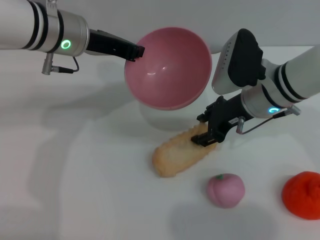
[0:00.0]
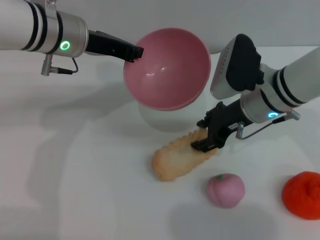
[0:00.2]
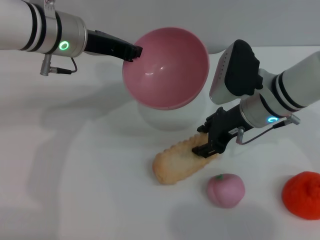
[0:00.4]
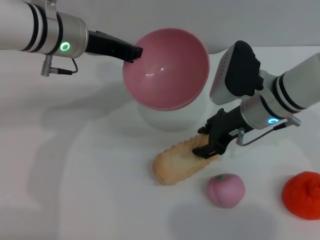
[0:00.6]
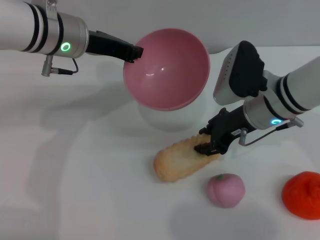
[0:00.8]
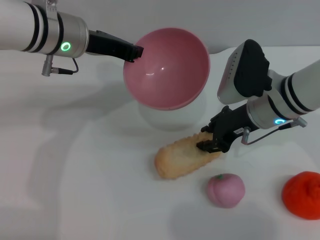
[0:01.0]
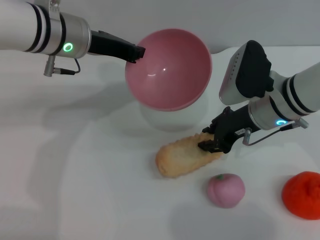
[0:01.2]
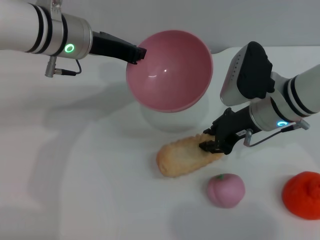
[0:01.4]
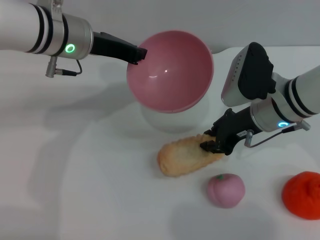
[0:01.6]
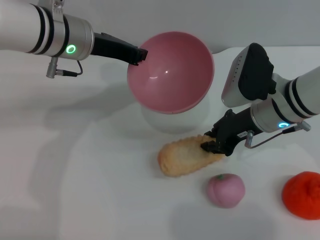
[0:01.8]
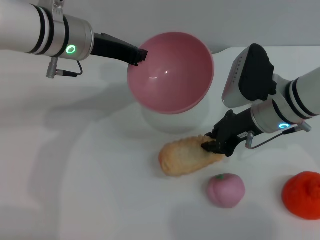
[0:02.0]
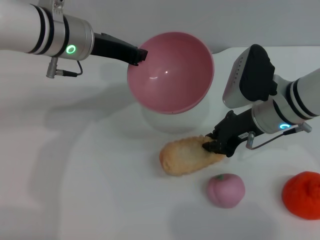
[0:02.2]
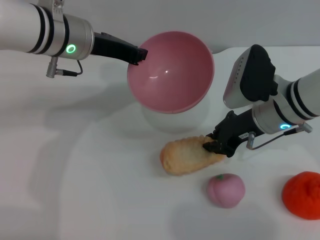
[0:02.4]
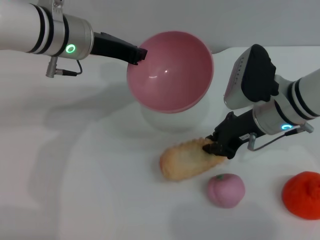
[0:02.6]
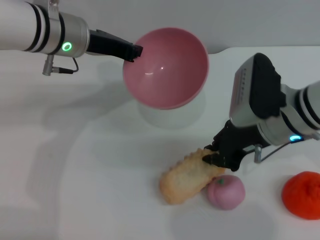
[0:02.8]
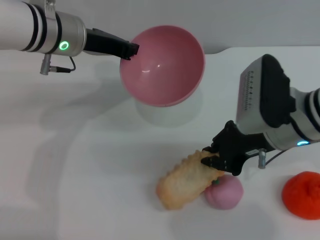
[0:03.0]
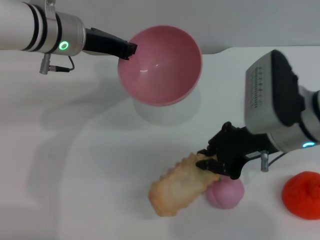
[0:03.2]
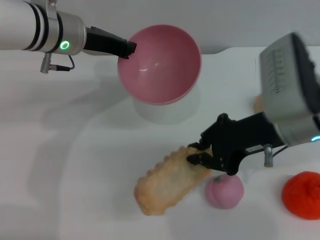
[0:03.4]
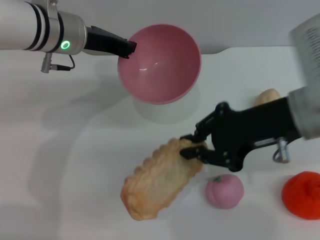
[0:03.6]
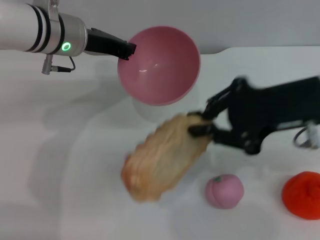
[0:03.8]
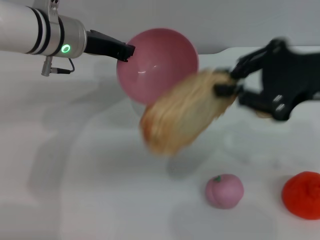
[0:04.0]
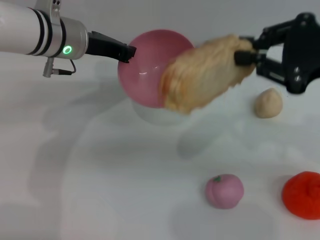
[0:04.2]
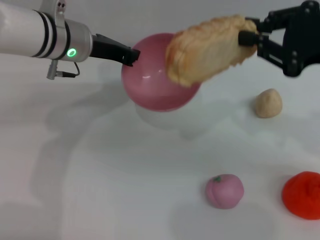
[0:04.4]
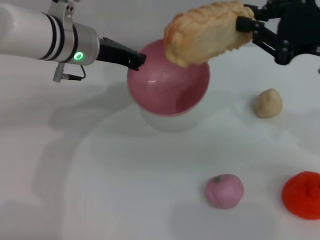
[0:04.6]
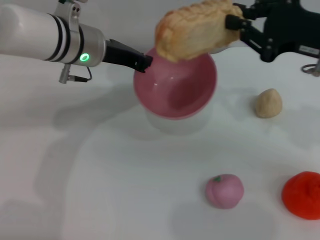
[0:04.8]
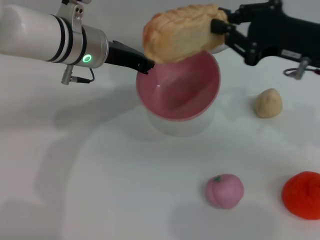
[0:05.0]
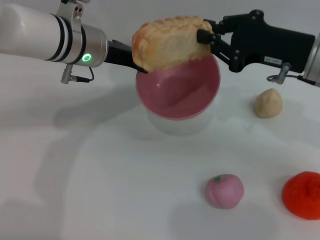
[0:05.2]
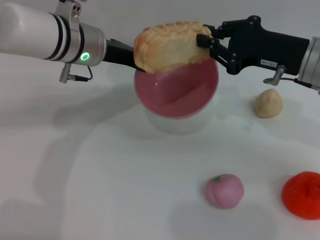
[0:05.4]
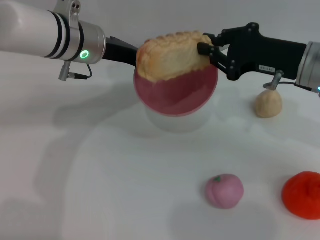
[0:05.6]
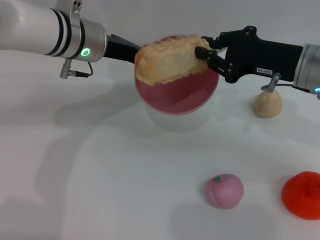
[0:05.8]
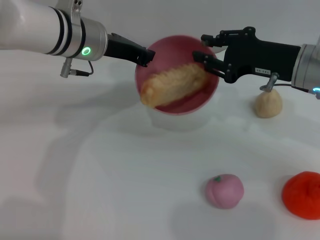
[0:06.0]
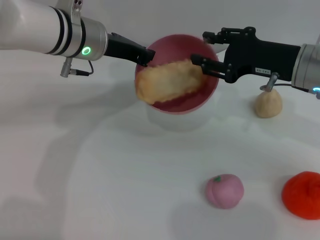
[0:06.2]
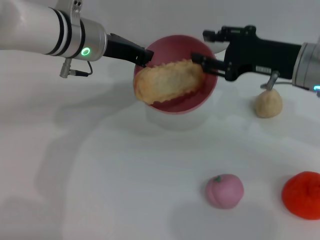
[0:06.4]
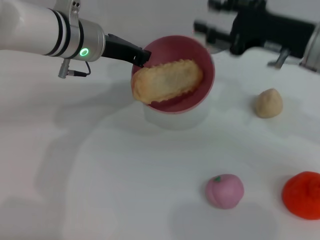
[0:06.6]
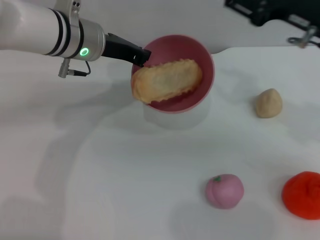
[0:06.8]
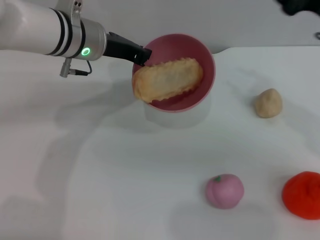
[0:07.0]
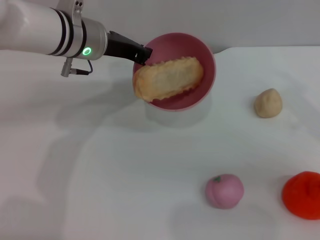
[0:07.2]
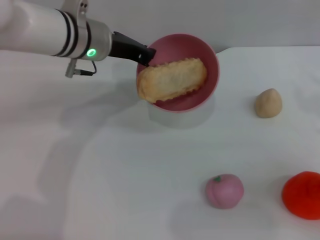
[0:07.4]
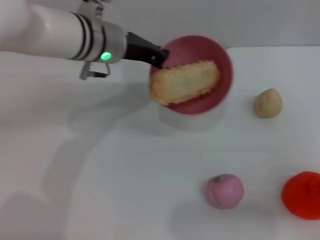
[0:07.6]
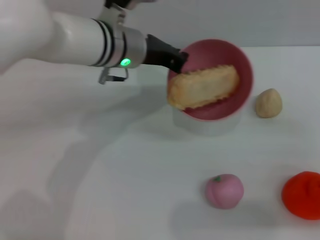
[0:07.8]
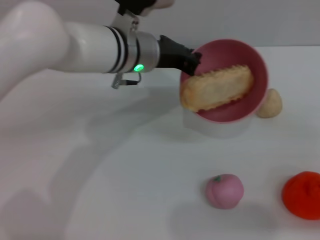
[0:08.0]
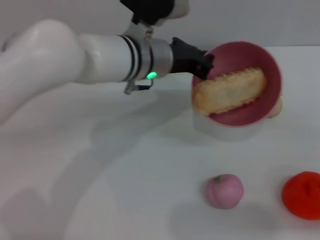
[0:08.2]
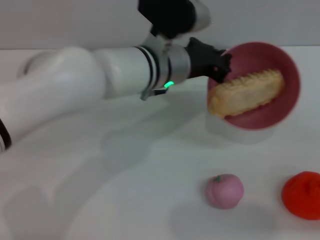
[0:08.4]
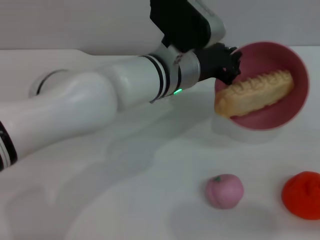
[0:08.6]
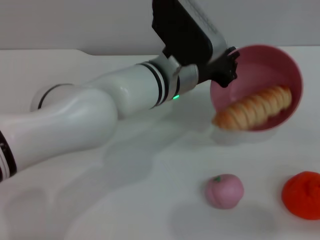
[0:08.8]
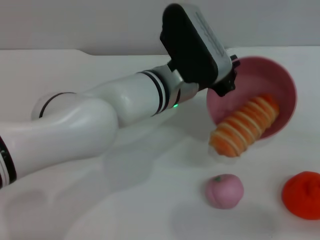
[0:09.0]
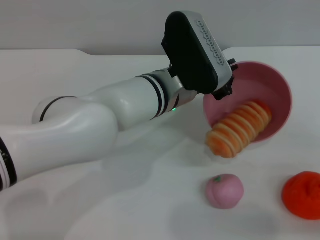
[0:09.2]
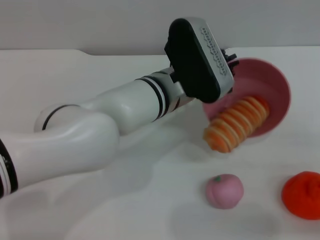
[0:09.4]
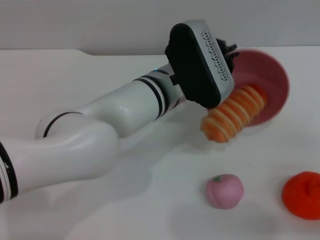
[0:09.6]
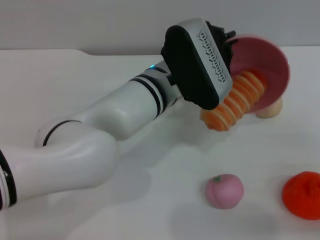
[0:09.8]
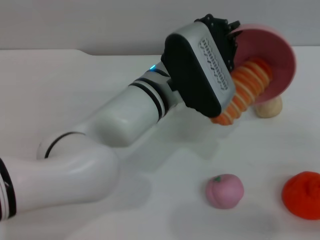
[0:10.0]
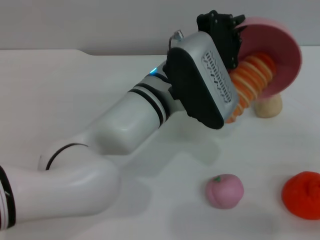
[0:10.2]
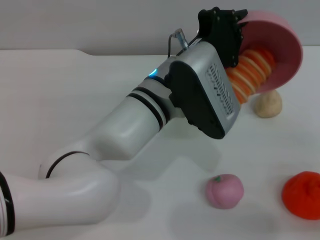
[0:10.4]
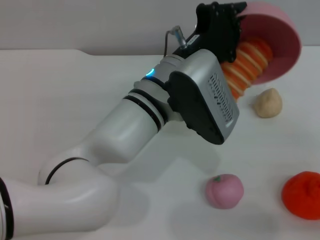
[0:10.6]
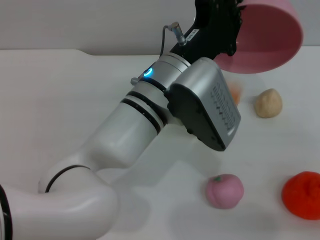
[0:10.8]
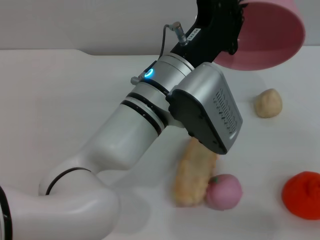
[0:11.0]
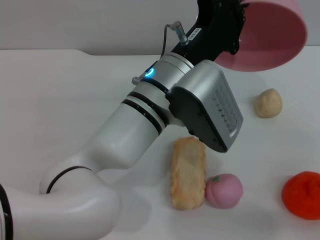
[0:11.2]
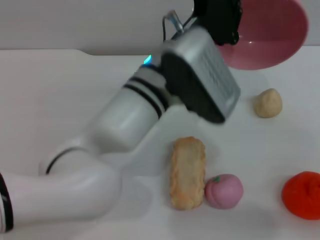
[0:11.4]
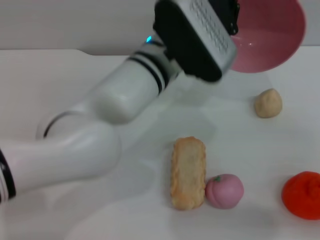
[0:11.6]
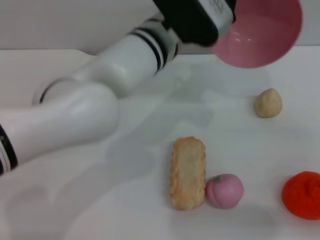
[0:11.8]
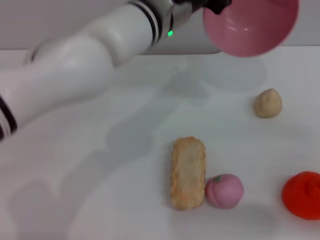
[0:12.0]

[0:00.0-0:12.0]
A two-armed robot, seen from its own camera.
Task of the whole recording: put the bread into the pink bowl and pour it out repeatedly.
Step, 0:00.0 to 0:04.0: Pick up the bread with the right gripper.
Step, 0:04.2 to 0:06.4: Place the bread into the bowl.
Step, 0:06.6 to 0:11.4: Pour the bread out of the bowl.
0:00.0 to 0:01.6: The right gripper closes up.
0:01.6 to 0:03.0: The right gripper travels backward by some 5 cm.
0:03.0 to 0:04.4: The right gripper shifts about 15 cm upward and to the right.
0:04.4 to 0:06.0: The right gripper goes roughly 10 cm downward and forward.
0:06.0 to 0:07.6: The right gripper shifts approximately 15 cm to the right and backward, and opens up.
0:07.6 to 0:09.0: The left gripper is displaced to the right and backward by roughly 10 cm, while the right gripper moves to the right, about 5 cm.
0:10.4 to 0:12.0: The left gripper heads forward and upward, covering about 10 cm.

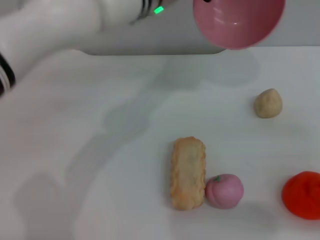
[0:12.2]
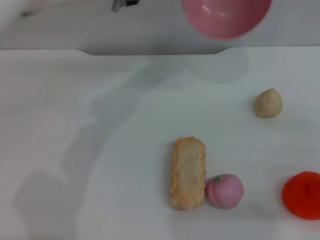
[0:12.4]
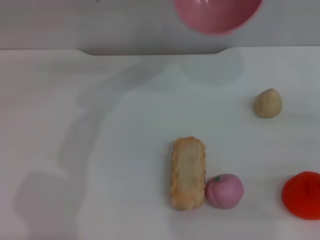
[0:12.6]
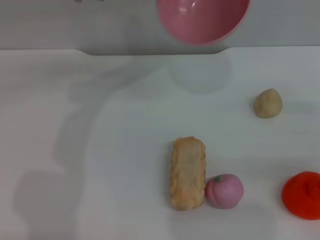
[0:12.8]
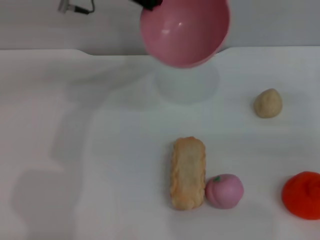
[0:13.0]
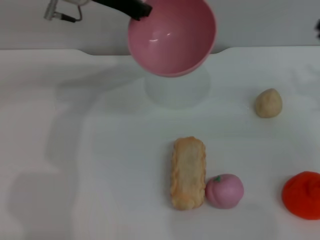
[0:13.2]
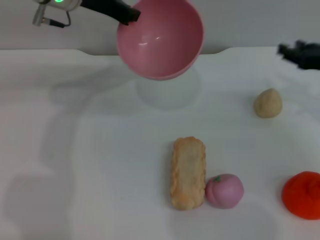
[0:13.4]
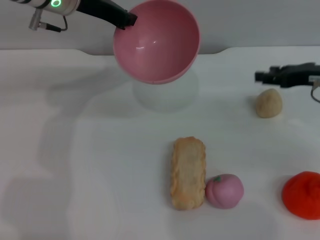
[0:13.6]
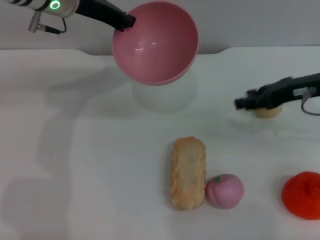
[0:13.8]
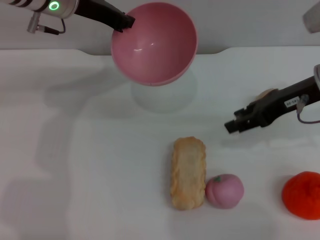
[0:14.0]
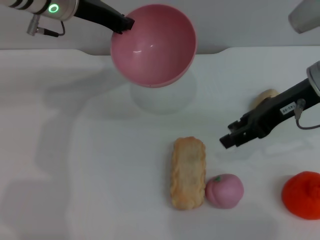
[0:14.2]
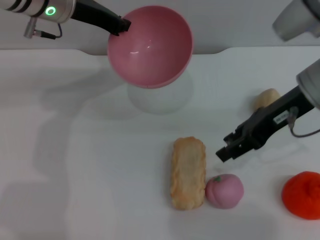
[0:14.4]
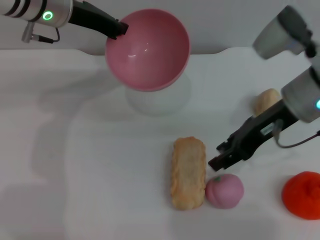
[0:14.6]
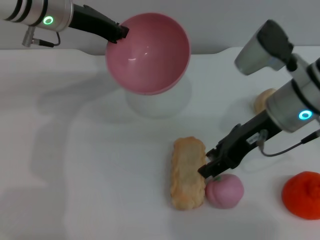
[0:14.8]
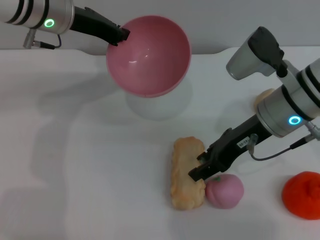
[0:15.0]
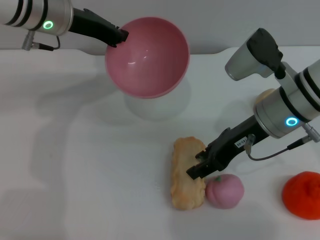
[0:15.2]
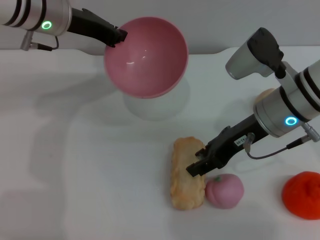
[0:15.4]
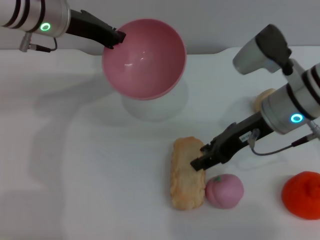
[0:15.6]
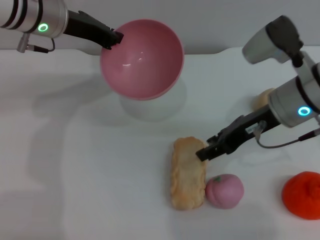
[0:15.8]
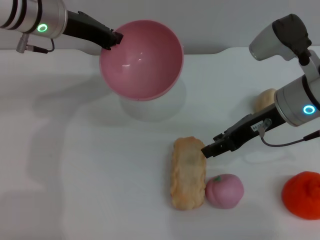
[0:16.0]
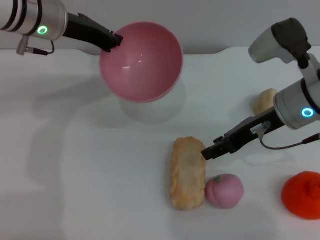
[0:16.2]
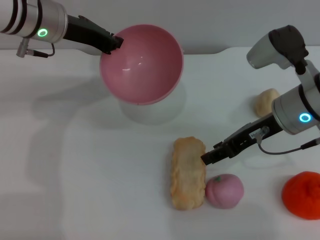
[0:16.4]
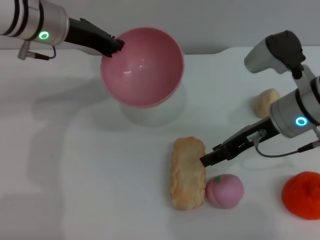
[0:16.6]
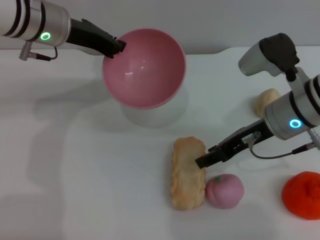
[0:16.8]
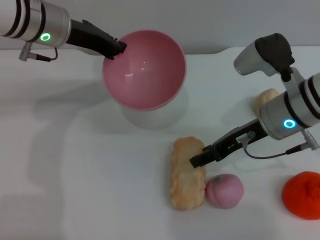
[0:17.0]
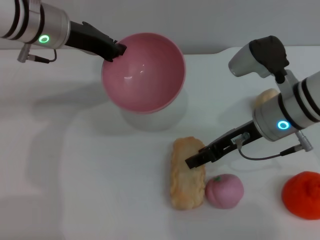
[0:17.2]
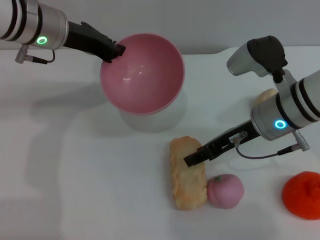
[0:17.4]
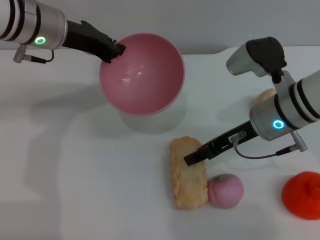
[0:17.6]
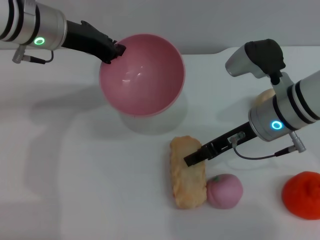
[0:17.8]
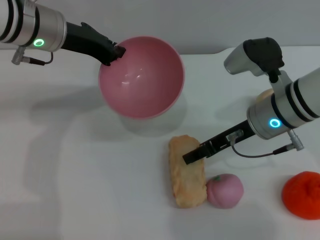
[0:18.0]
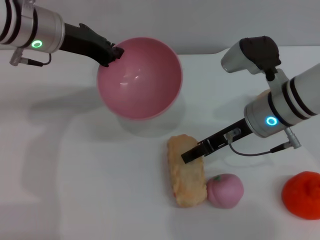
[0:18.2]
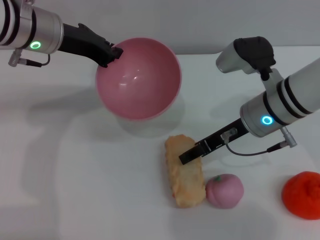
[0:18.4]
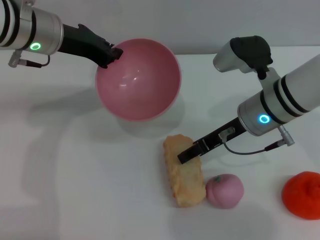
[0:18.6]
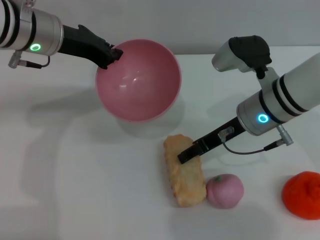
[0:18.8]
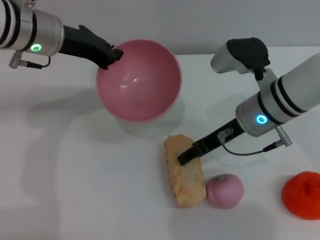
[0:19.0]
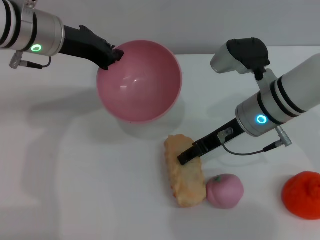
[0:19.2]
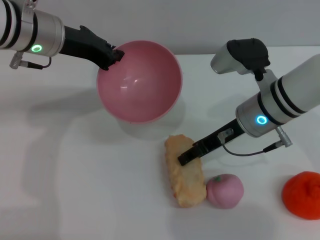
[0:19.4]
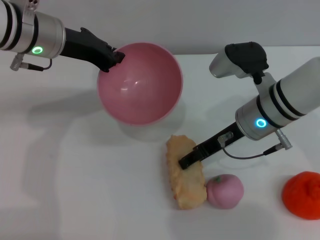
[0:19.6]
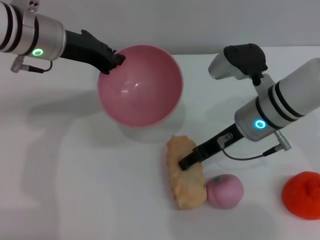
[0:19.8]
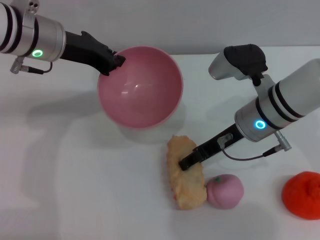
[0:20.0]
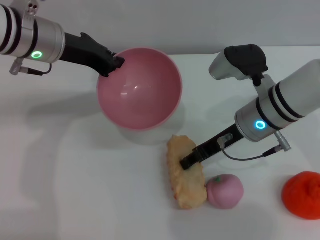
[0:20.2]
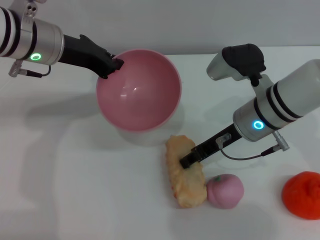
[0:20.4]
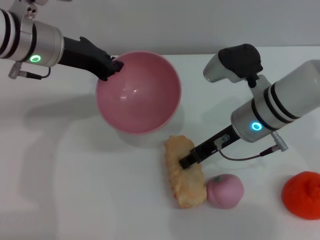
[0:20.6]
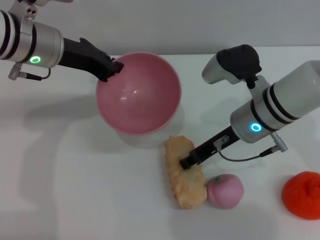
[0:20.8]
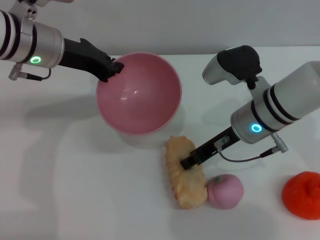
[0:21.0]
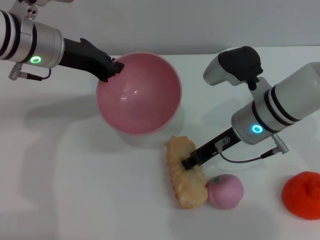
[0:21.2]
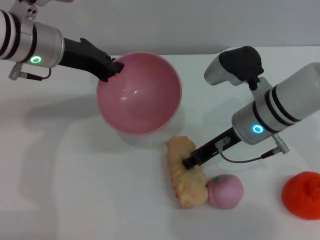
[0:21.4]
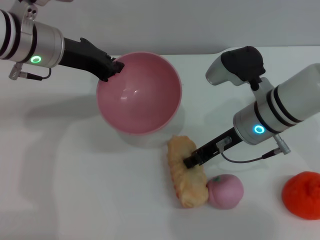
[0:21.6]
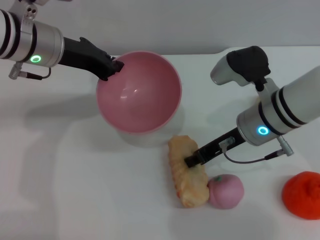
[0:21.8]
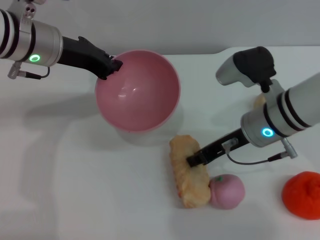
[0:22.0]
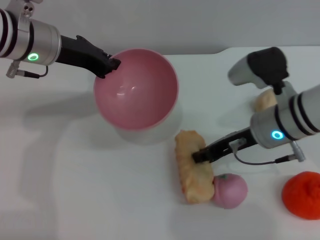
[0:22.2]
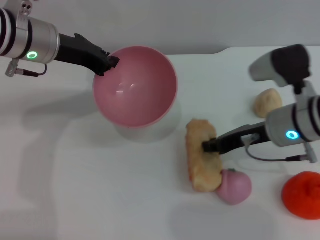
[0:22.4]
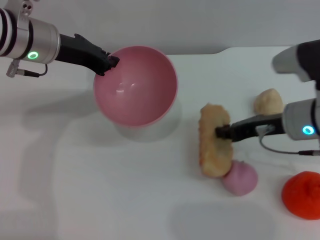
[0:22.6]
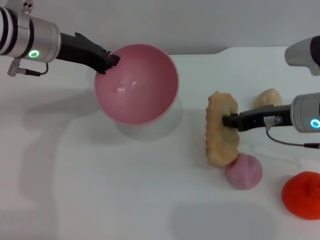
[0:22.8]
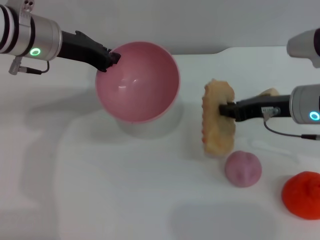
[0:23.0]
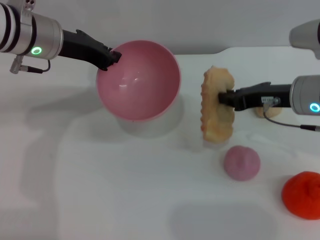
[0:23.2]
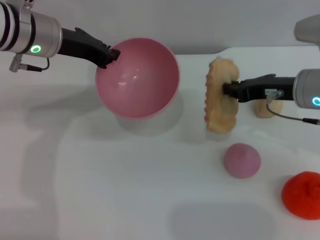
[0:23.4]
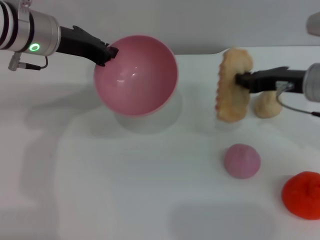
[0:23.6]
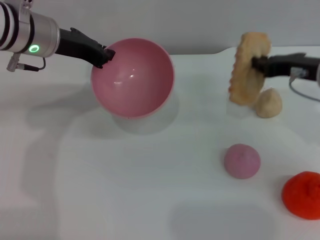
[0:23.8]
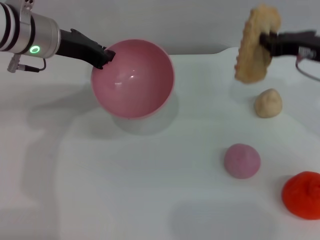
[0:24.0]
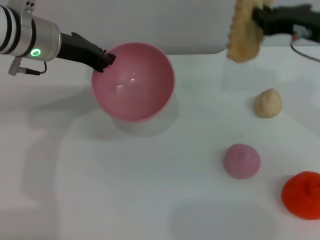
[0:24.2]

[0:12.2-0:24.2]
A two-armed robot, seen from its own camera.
Task of the whole recording: put the bread into the pink bowl and pour it out repeatedly.
Step, 0:12.2 to 0:23.2: Pick up the bread with the right gripper.
0:12.2 to 0:13.8: The left gripper shifts approximately 15 cm to the left, while the right gripper moves forward and to the left, some 15 cm.
0:13.8 to 0:15.2: The right gripper shifts about 10 cm to the left.
0:15.2 to 0:18.2: The grippers stay close to where they were, moving slightly.
0:18.2 to 0:19.8: There are only small adjustments of the grippers.
0:19.8 to 0:21.2: The right gripper closes.
0:21.2 to 0:22.6: The right gripper is displaced to the right by some 5 cm.
0:22.6 to 0:24.2: The right gripper moves upward, some 10 cm.
